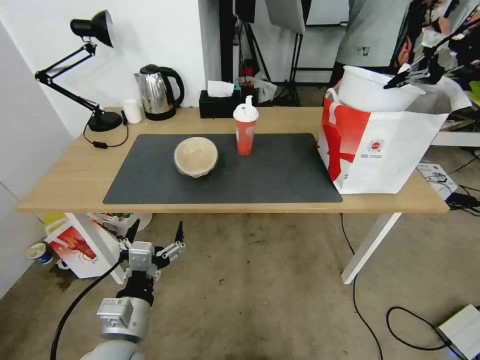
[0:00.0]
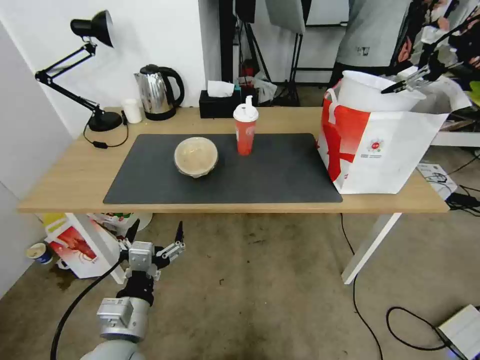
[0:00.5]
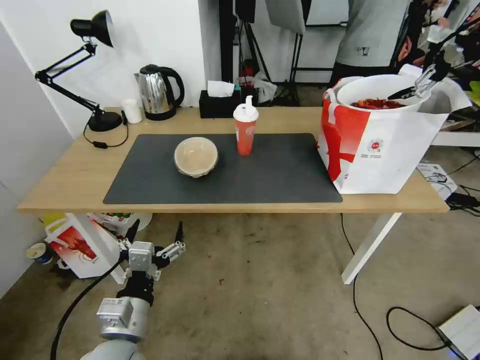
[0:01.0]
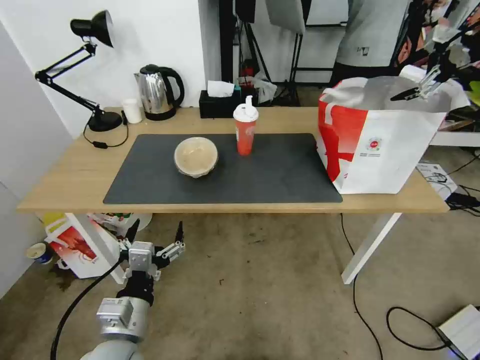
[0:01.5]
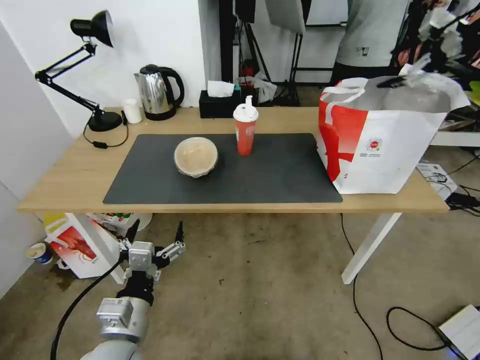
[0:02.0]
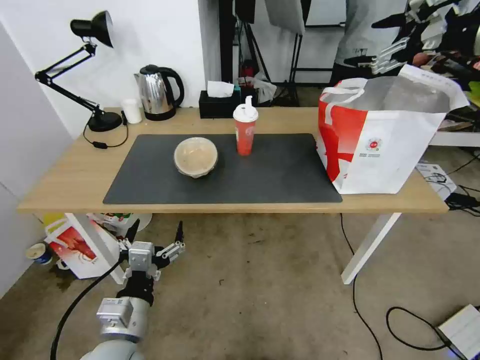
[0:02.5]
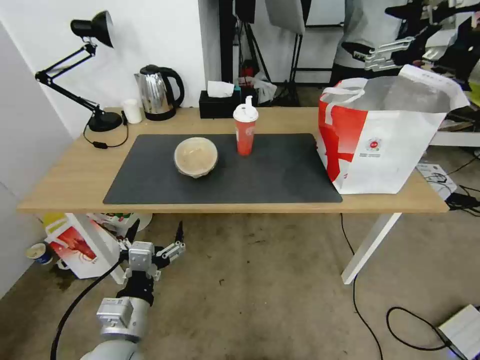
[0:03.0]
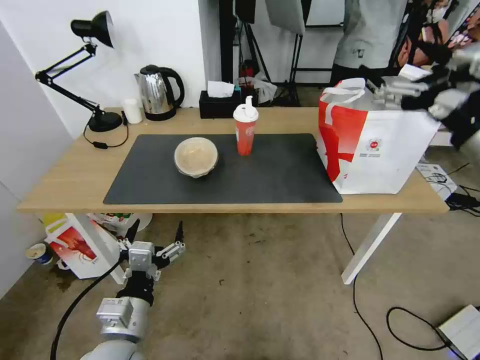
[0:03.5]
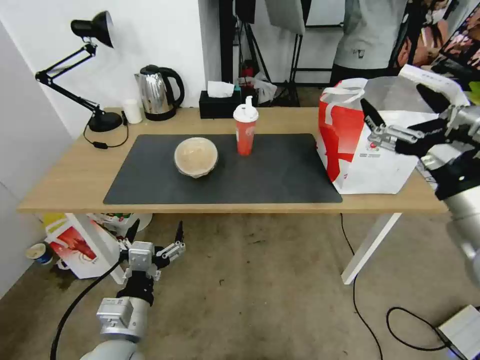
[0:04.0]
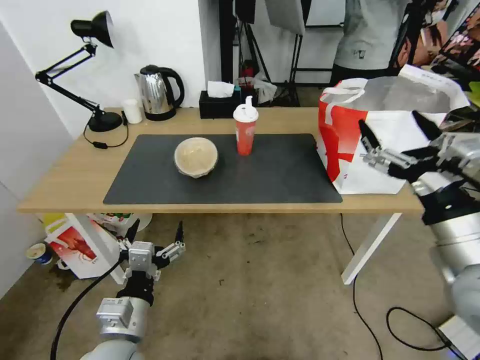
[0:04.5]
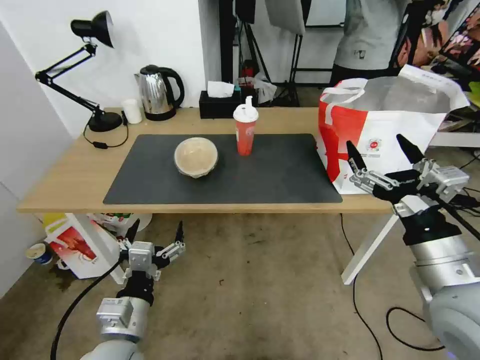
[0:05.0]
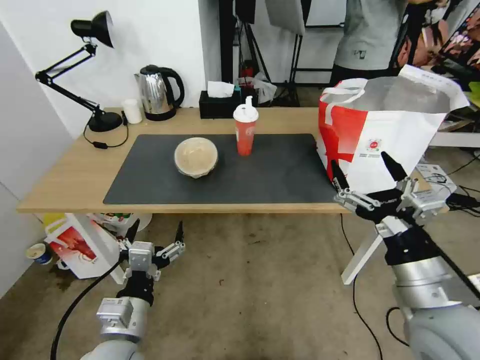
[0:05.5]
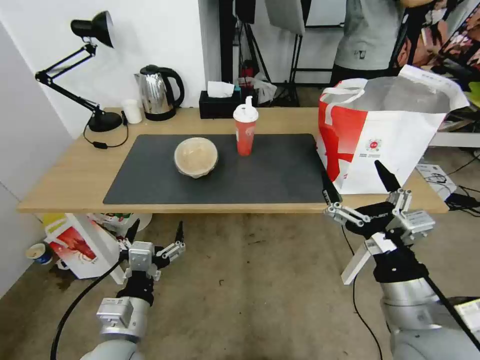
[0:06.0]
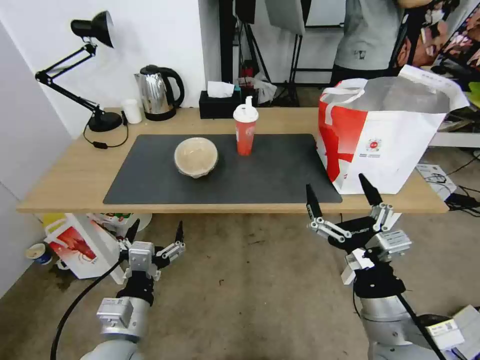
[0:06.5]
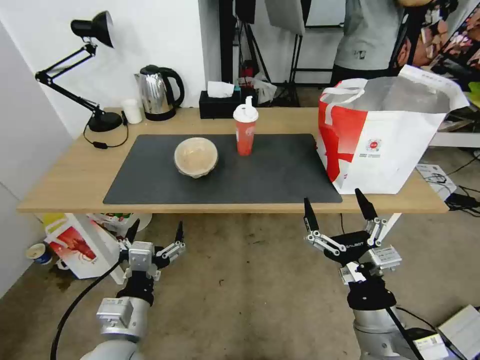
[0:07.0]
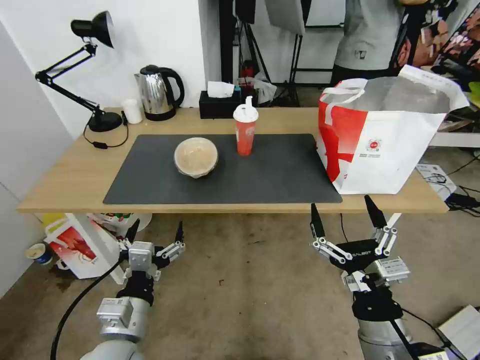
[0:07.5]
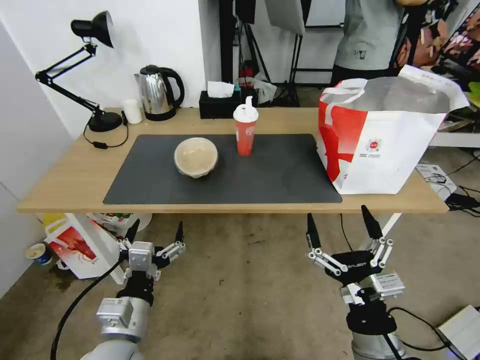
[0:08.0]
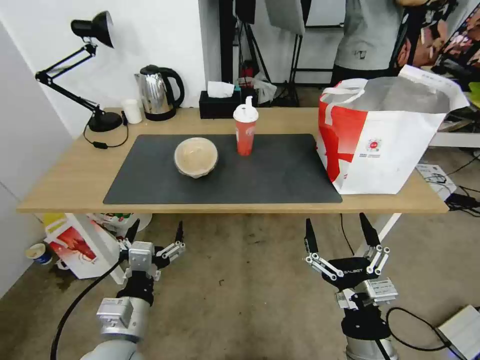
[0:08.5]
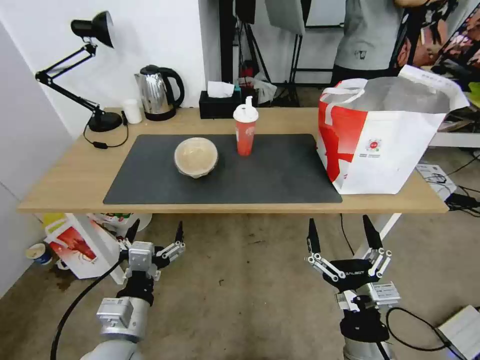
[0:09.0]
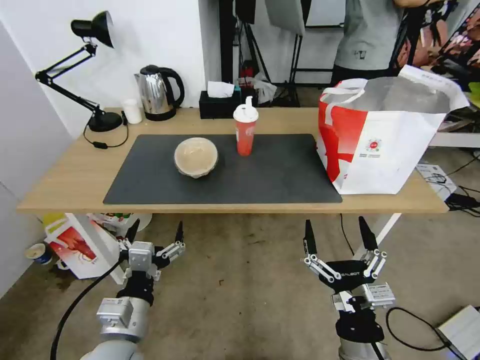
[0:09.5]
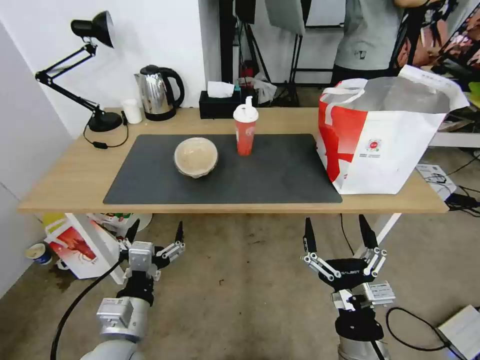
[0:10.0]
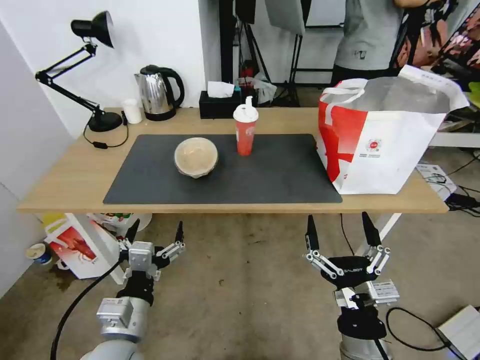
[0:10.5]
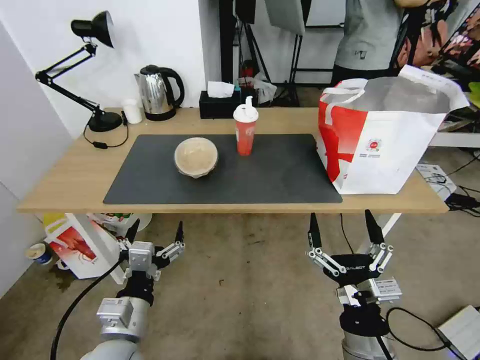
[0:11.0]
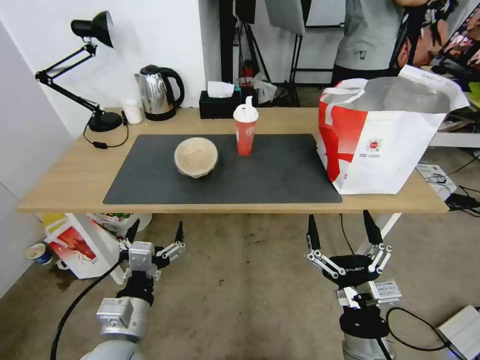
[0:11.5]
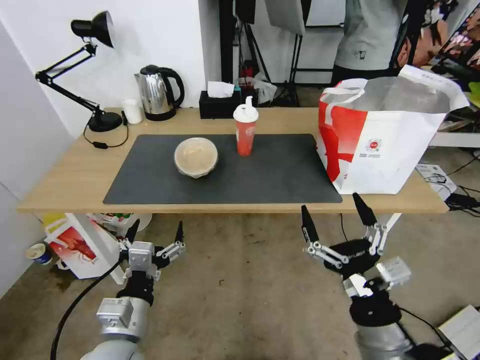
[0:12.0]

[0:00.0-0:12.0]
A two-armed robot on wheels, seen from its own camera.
Task of the whole recording: Pick up the trash from the table and place it into the takeout bag.
0:00.0 to 0:02.0: The right gripper opens.
0:02.0 to 0:04.0: The right gripper heads backward, downward and to the left, covering some 40 cm.
0:04.0 to 0:06.0: The right gripper moves downward, to the left and backward, some 15 cm.
0:06.0 to 0:08.0: The right gripper travels downward by roughly 10 cm.
0:08.0 to 0:10.0: The grippers make only small movements.
0:10.0 to 0:12.0: The right gripper travels upward by some 5 cm.

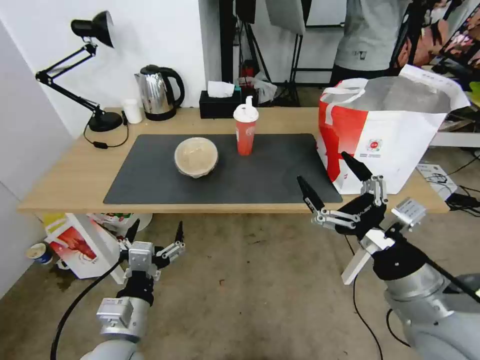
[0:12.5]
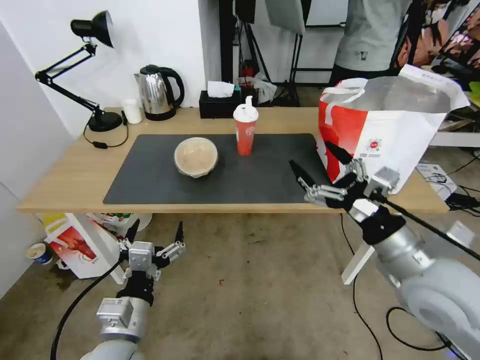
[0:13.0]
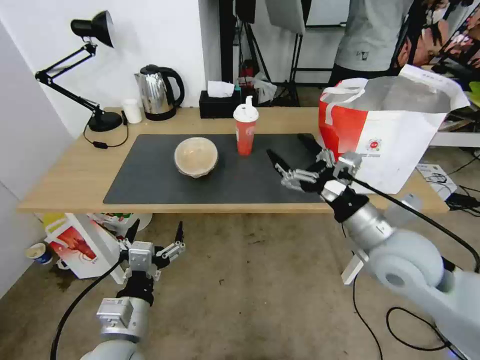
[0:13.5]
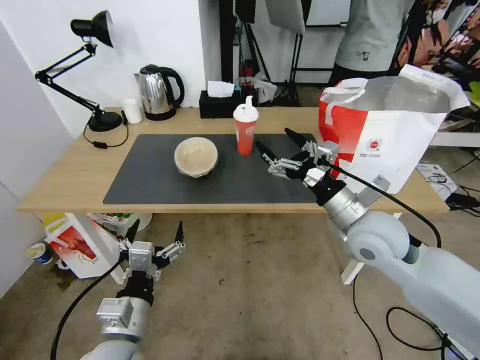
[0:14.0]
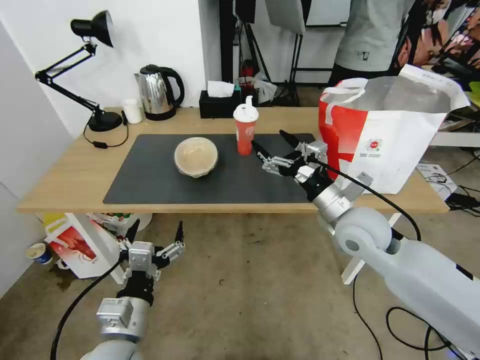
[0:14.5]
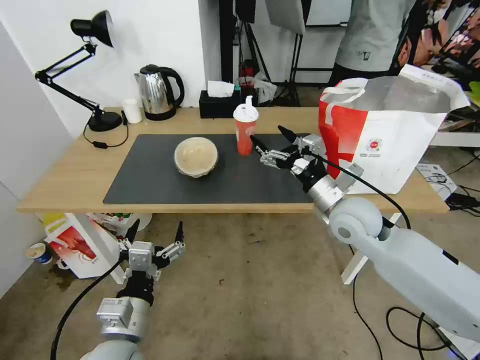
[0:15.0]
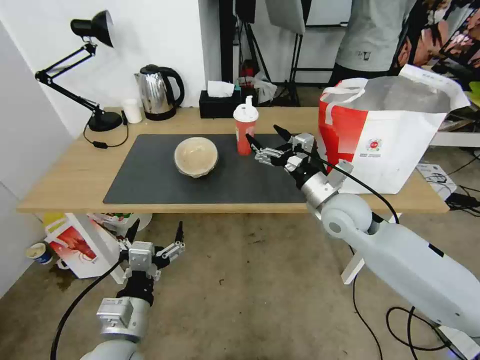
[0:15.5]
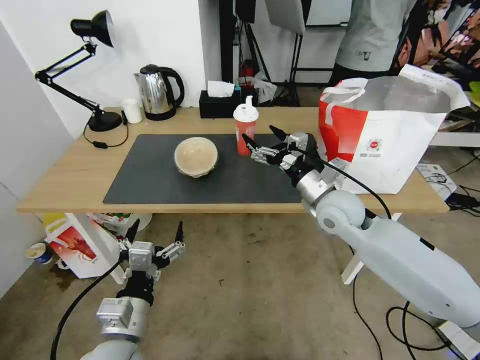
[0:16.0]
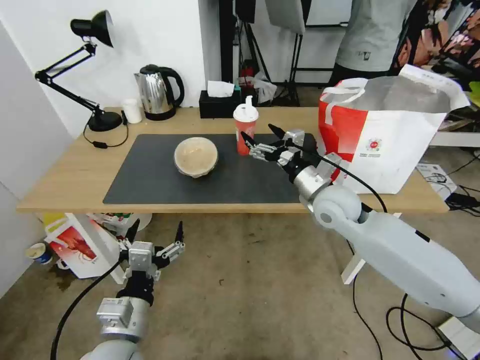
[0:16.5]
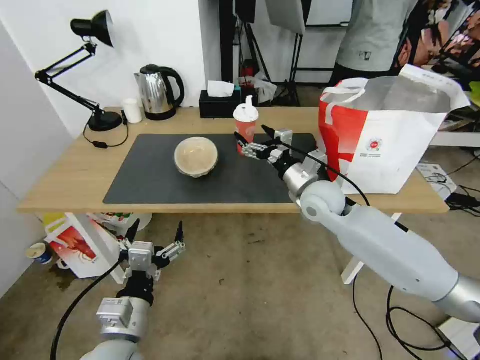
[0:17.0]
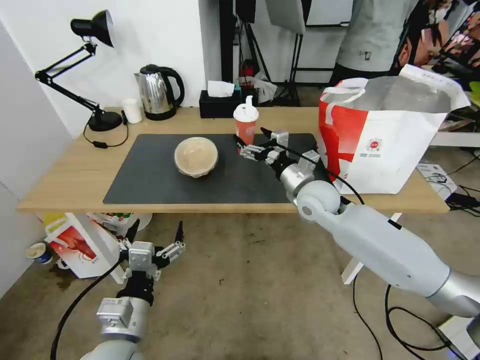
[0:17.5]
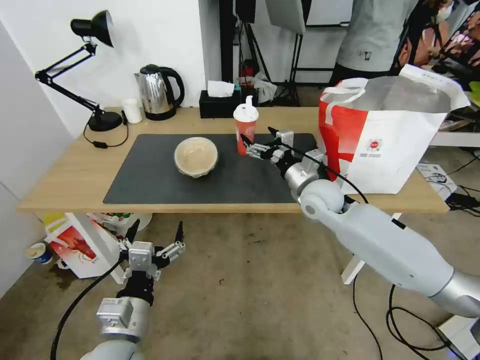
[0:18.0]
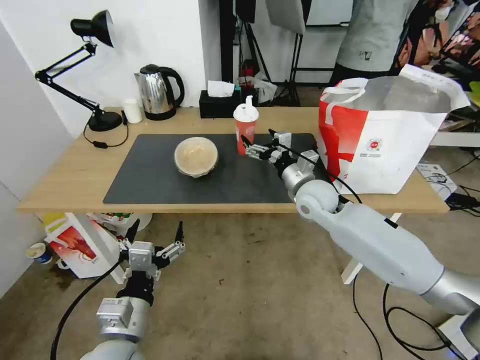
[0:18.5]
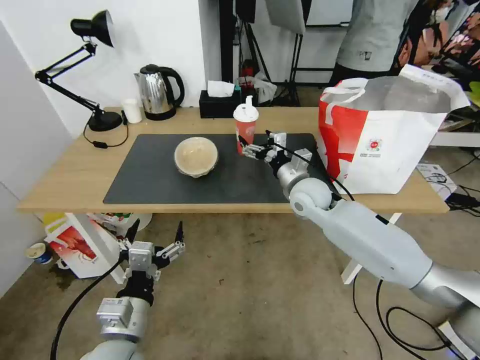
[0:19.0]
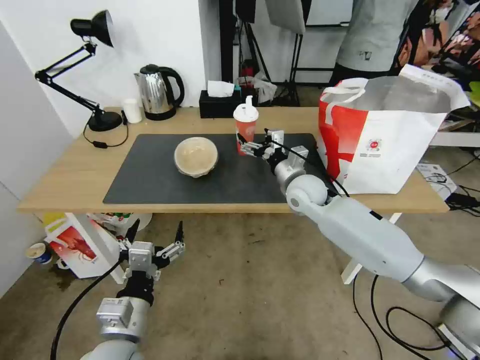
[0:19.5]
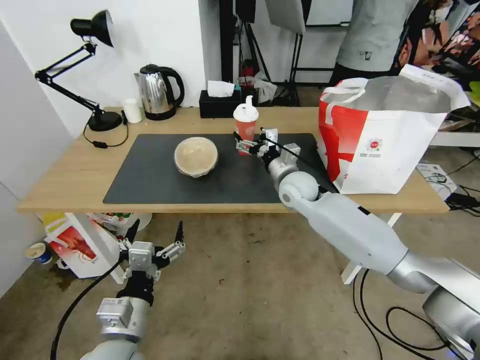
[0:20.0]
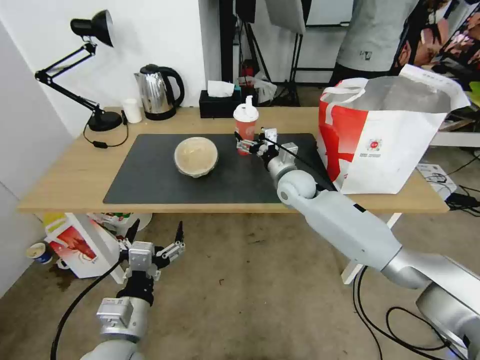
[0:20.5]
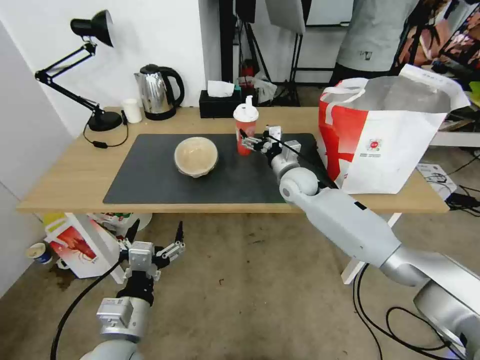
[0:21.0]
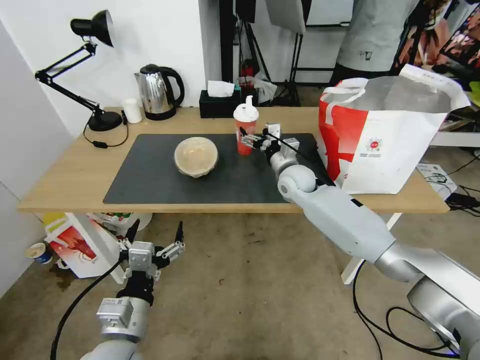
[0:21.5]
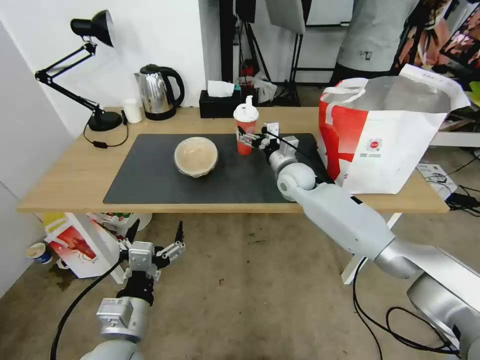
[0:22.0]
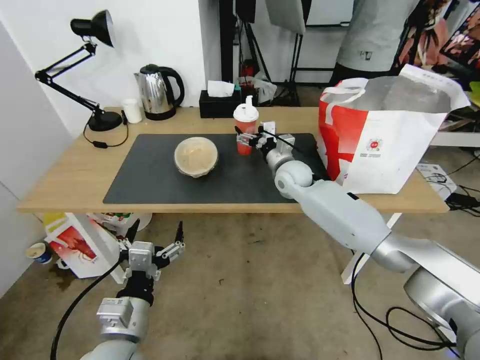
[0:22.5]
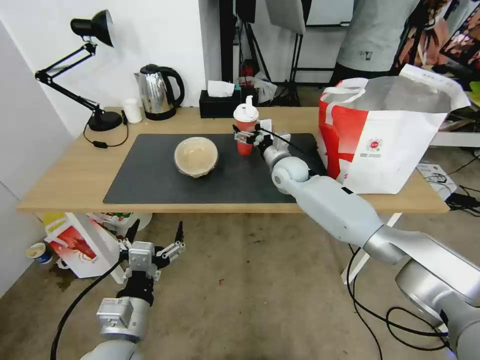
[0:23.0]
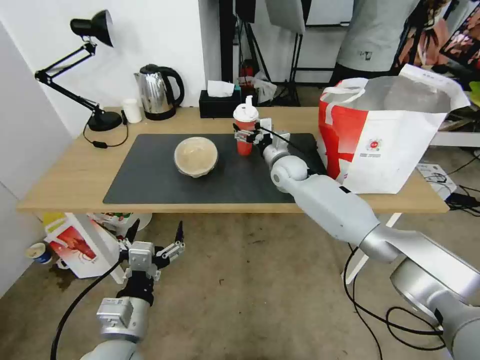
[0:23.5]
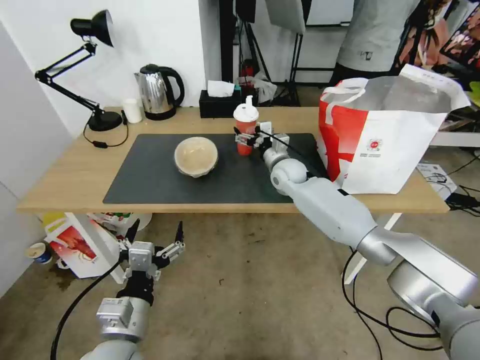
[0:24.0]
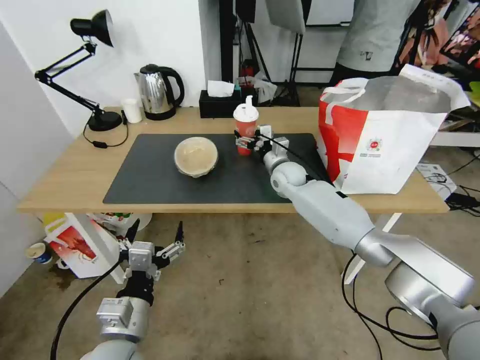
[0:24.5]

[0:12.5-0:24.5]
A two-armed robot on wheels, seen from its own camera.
Task of the whole recording: Pick up the trash from the table and place it into the takeout bag.
0:12.5 to 0:14.5: The right gripper is displaced forward by some 20 cm.
0:14.5 to 0:16.5: The right gripper is displaced forward by some 5 cm.
0:16.5 to 0:18.5: The right gripper ends up roughly 5 cm from where it was.
0:18.5 to 0:20.5: The right gripper goes roughly 5 cm forward.
0:20.5 to 0:22.5: The grippers make only small movements.
0:22.5 to 0:24.5: The grippers move only a little.

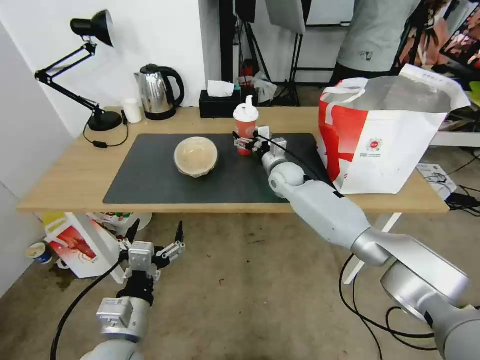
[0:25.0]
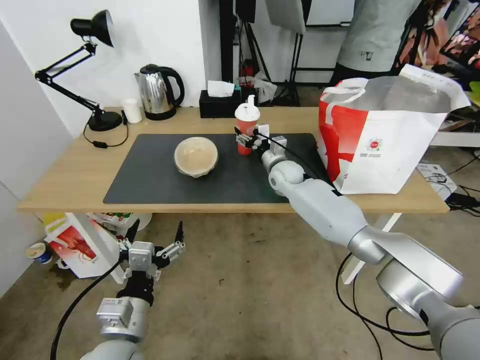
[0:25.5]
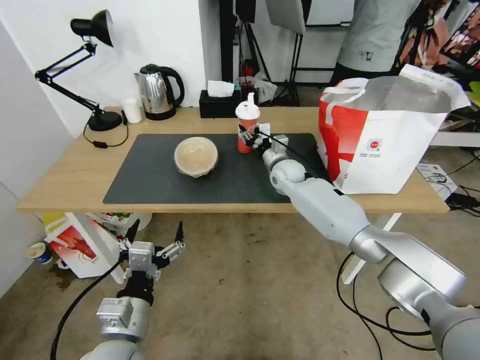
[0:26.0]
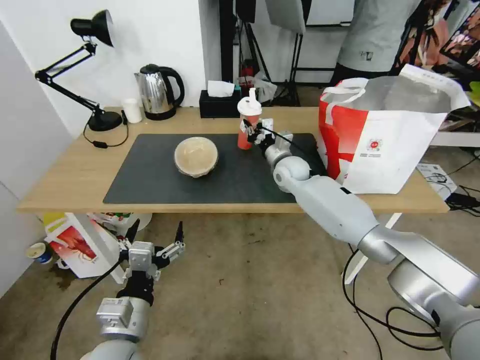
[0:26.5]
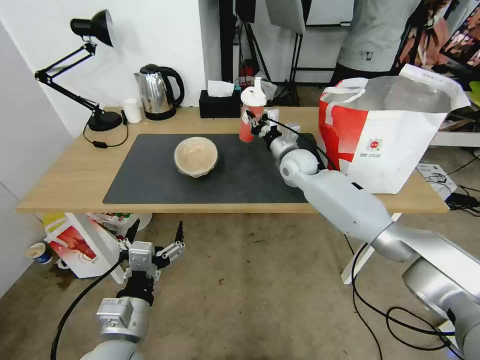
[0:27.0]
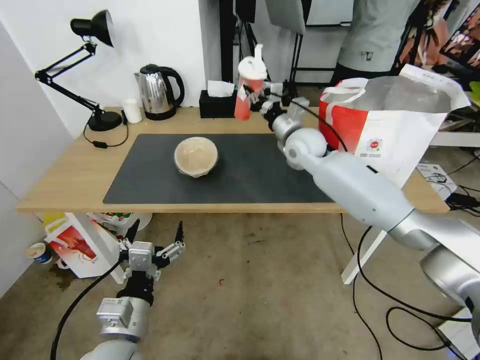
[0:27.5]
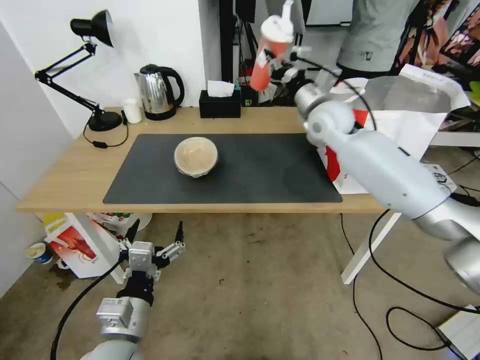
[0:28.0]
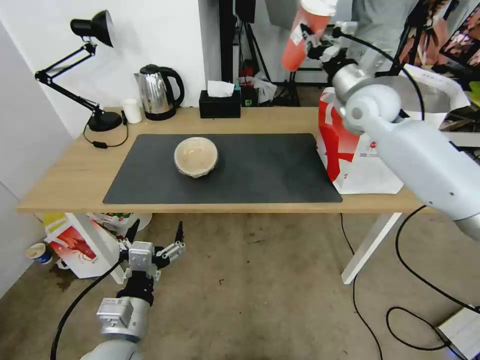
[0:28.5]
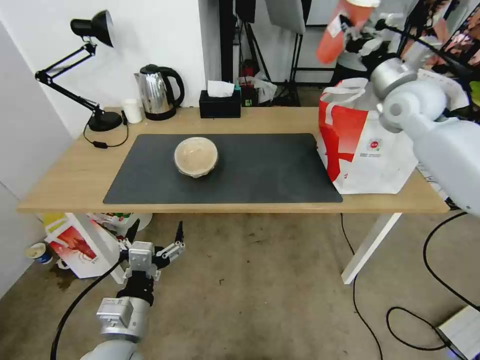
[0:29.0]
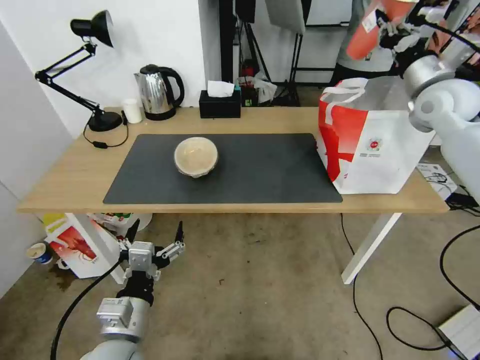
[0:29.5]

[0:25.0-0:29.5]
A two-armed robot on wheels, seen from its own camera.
Task of the whole recording: Pick up the trash from the table and place it into the takeout bag.
0:25.0 to 0:27.0: The right gripper heads upward, covering about 5 cm, and closes.
0:27.0 to 0:29.5: The right gripper goes about 30 cm to the right and upward.
